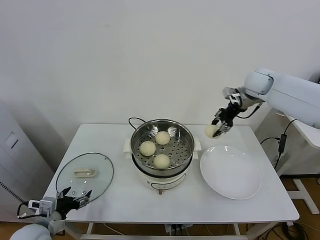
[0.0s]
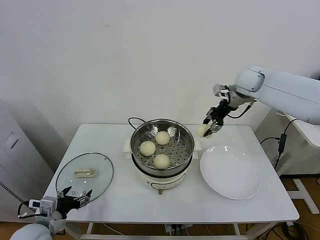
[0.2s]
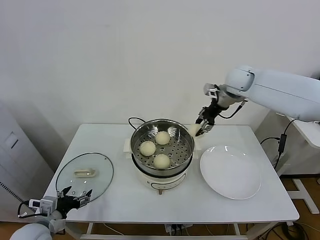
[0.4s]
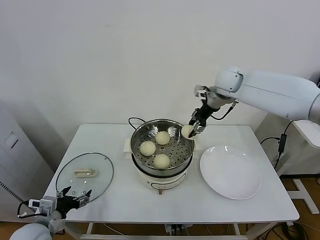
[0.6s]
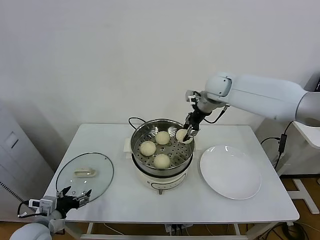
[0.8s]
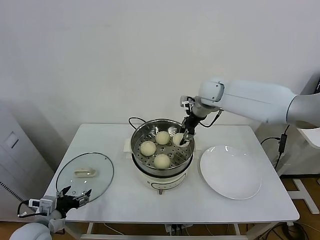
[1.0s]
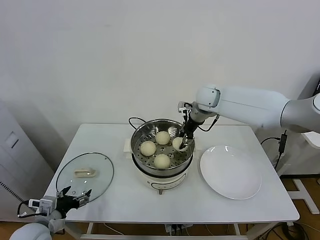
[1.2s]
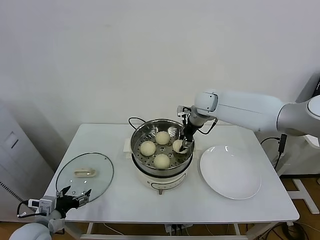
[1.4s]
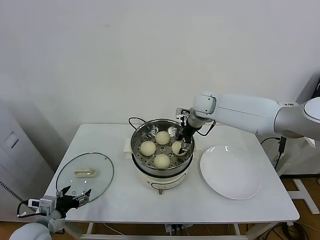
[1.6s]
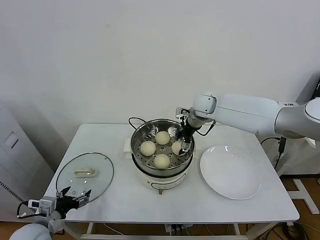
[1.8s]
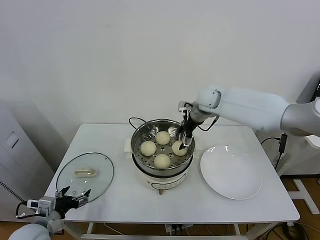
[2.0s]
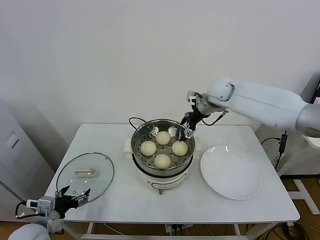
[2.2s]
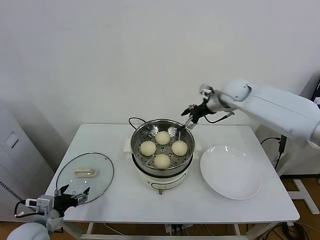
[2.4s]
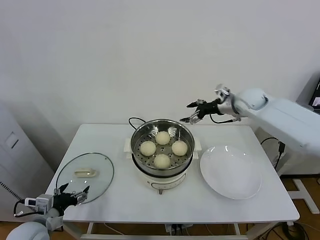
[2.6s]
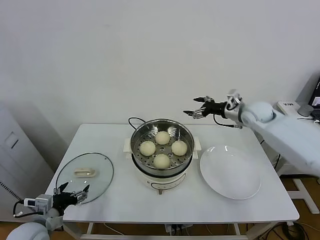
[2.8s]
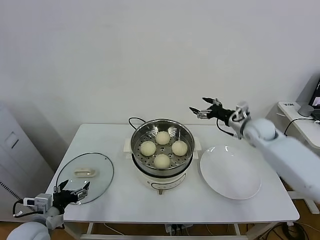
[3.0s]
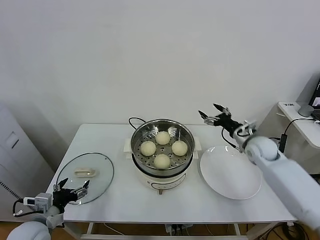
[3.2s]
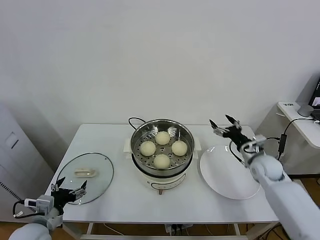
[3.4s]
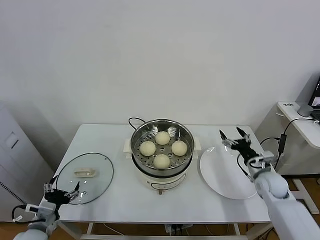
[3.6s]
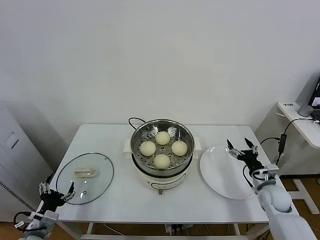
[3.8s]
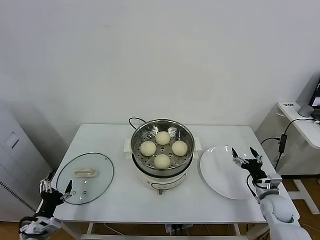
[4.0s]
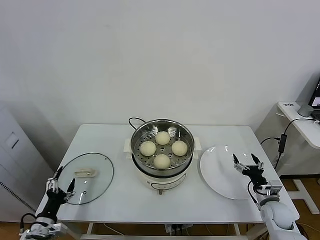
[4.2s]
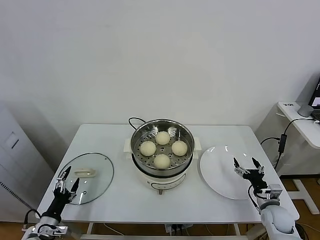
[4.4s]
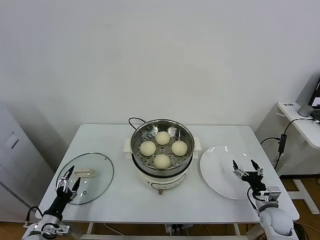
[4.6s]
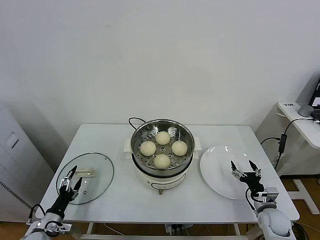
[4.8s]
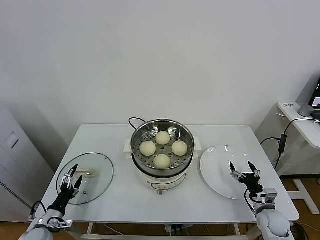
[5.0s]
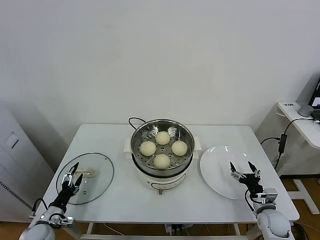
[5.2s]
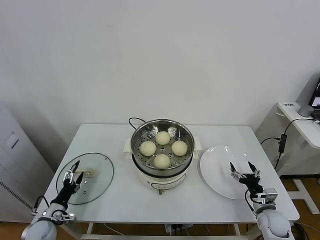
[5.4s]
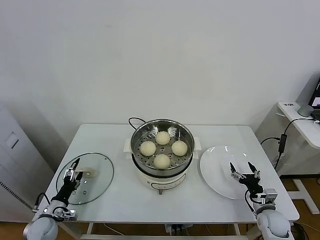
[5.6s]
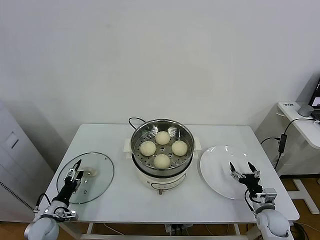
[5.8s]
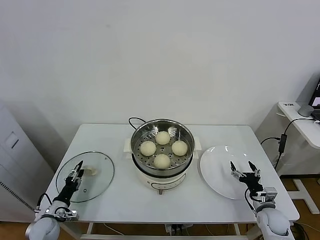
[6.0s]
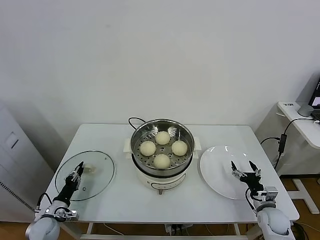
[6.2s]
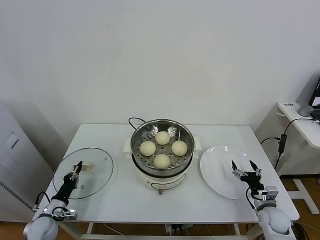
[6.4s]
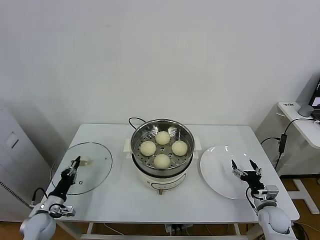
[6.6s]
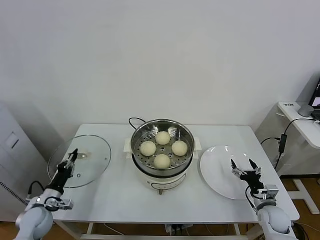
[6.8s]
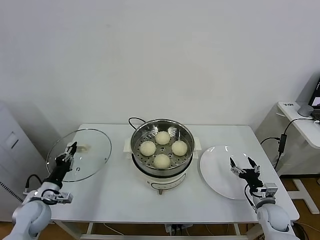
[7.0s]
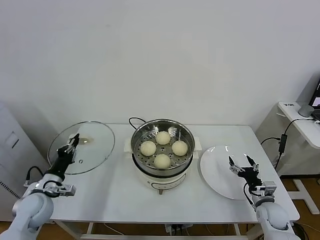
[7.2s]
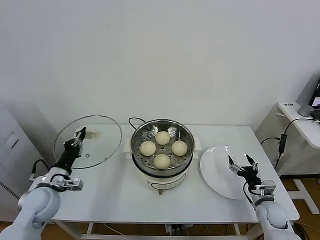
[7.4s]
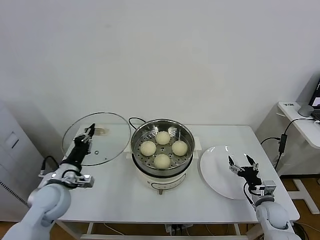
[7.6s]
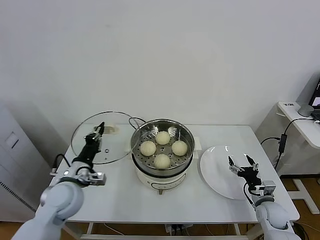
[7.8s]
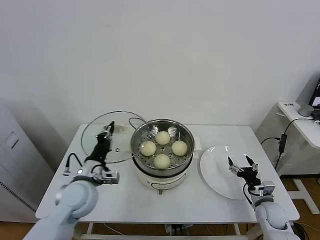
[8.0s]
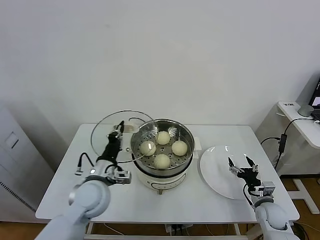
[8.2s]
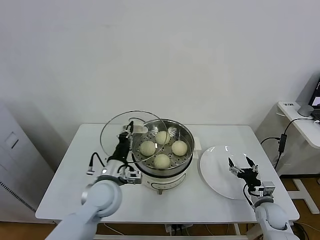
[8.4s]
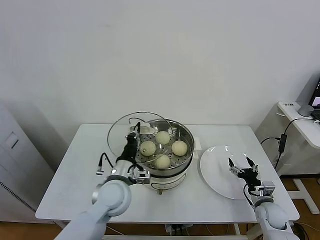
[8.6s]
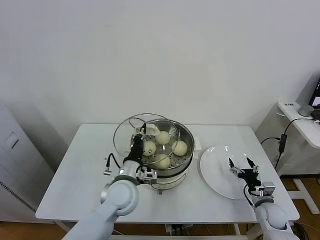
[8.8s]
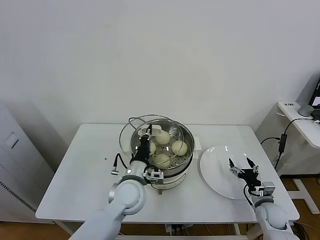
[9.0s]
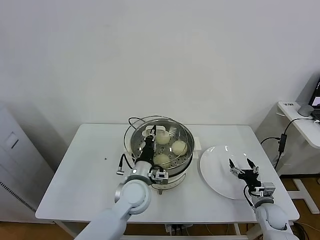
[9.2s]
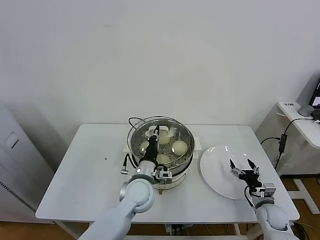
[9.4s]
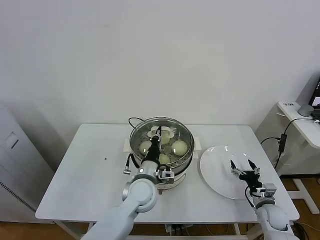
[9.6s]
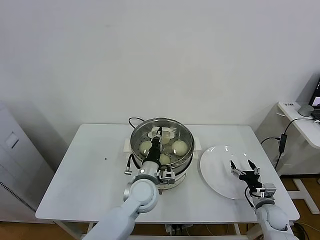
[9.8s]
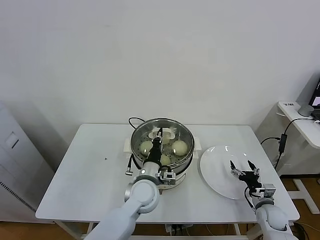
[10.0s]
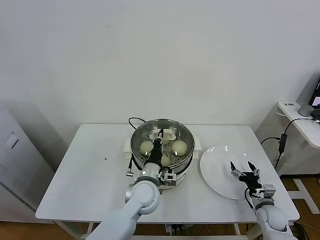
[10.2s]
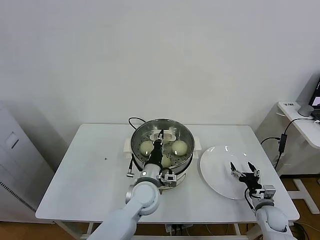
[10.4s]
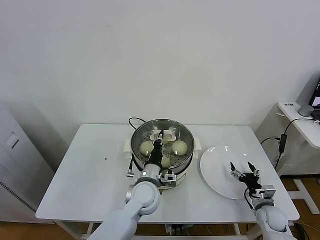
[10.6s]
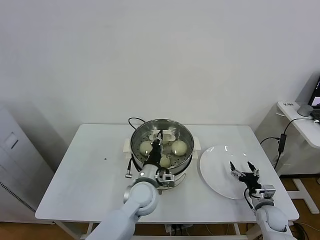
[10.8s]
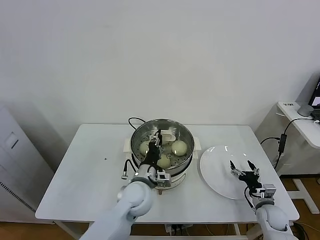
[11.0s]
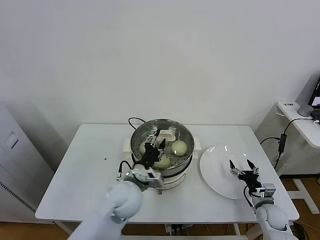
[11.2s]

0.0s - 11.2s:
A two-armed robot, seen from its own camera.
Task of the whole recording: take steamed baozi put them in steamer.
Step, 0.0s - 2.0s: Place the baozi on the steamer with right gripper.
Step, 2.2s - 6.4s: Grasp the pot lid with left gripper.
0.0s - 1.6s: The right gripper is displaced to the left and downward by some 20 cm, and opens.
1.6s - 3.2s: The right gripper is displaced to the right, backward and downward by some 25 cm, and opens.
3.2s - 4.8s: The right gripper goes approximately 25 cm downward and backward; the left gripper heads downward and to the left, covering roughly 15 cm.
4.8s - 6.4s: The left gripper heads forward, covering some 5 cm, and closes up.
6.4s - 8.0s: The left gripper travels upward and to the right by roughly 30 cm.
8.0s - 9.6s: The left gripper travels to the right by approximately 20 cm.
9.6s - 11.2s: The left gripper opens.

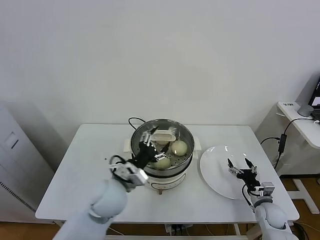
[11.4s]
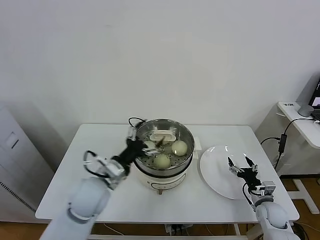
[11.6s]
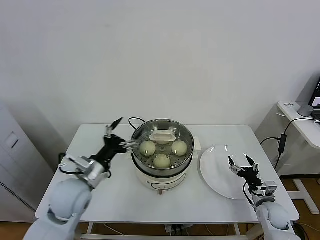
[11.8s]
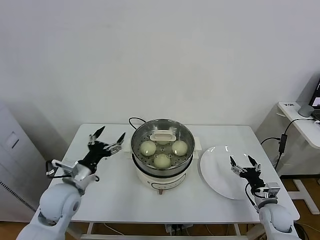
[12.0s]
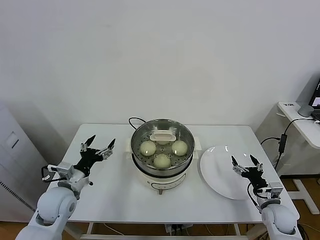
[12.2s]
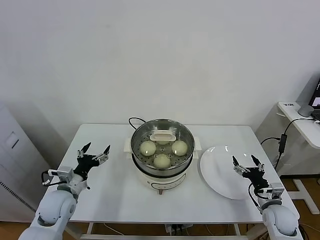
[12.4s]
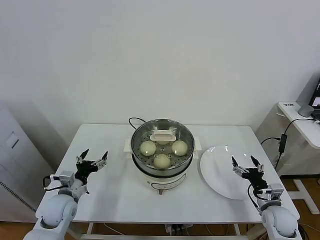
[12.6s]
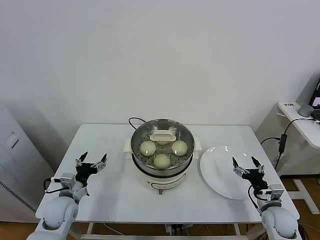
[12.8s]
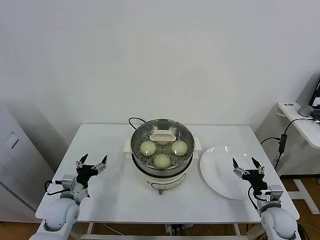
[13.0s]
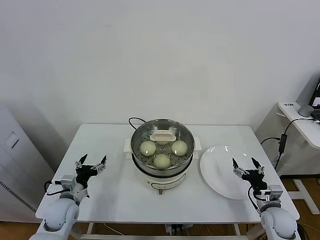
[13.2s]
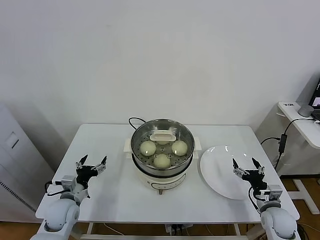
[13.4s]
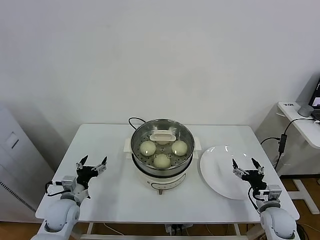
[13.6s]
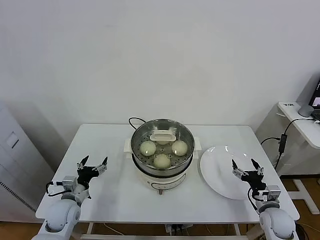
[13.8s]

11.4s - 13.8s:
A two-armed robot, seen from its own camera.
Task of the whole recording: take steamed baozi put them in steamer.
11.4s - 12.6s: The left gripper goes roughly 20 cm to the left and downward. Meanwhile the right gripper is displaced upward by about 5 cm.
12.6s - 13.8s: There are only small adjustments of the grippers.
